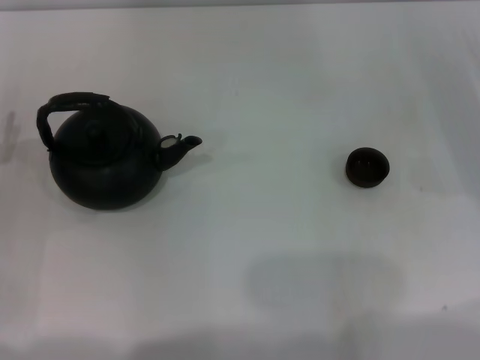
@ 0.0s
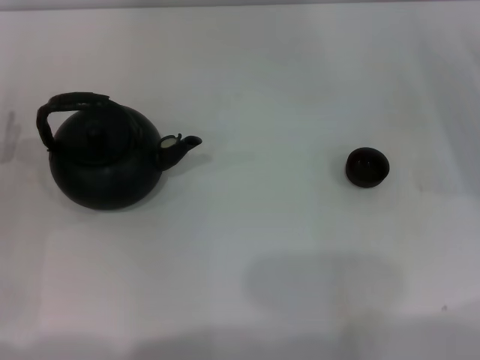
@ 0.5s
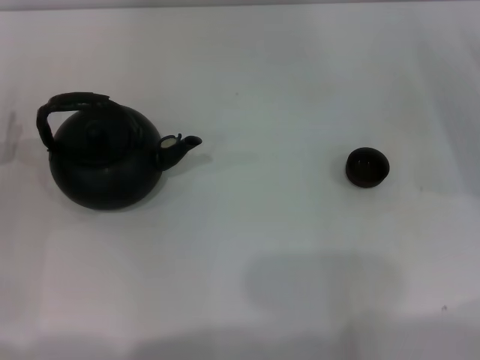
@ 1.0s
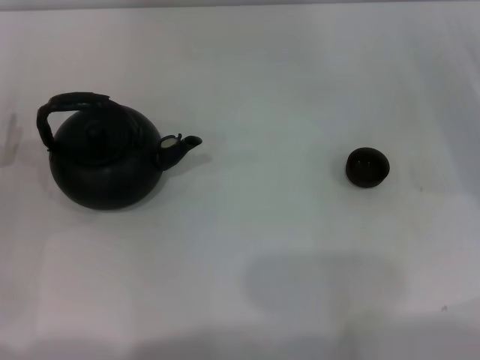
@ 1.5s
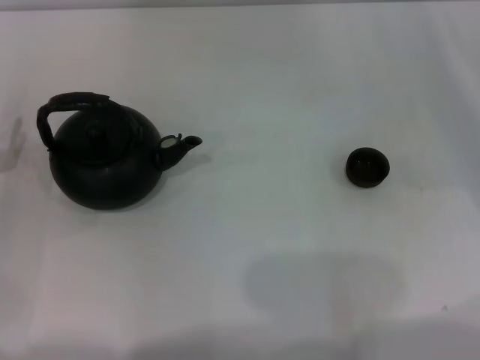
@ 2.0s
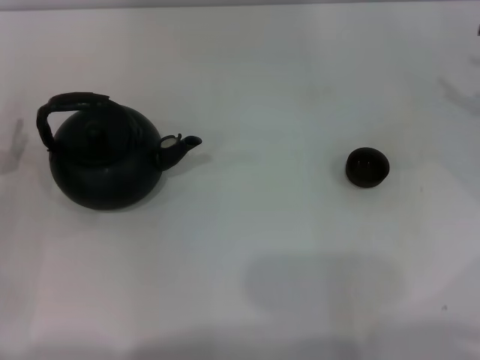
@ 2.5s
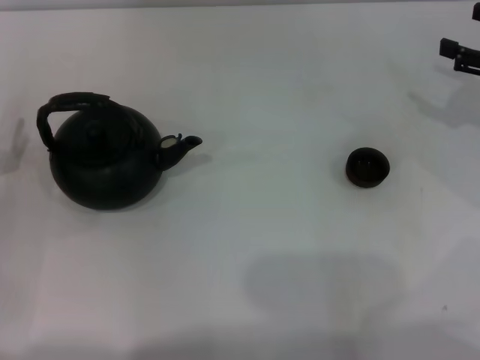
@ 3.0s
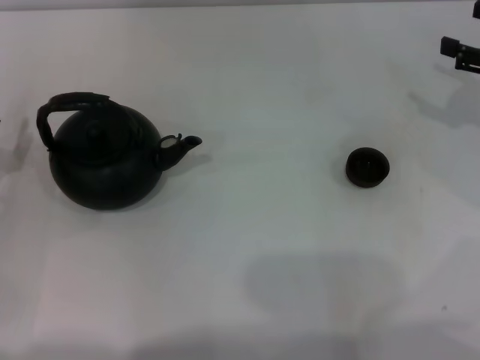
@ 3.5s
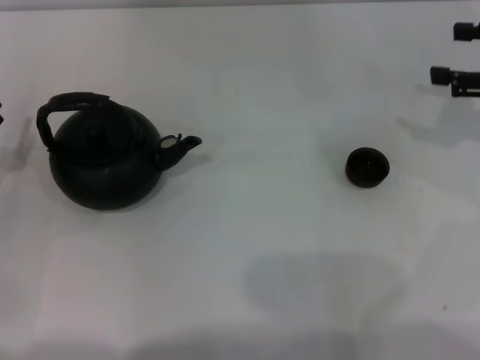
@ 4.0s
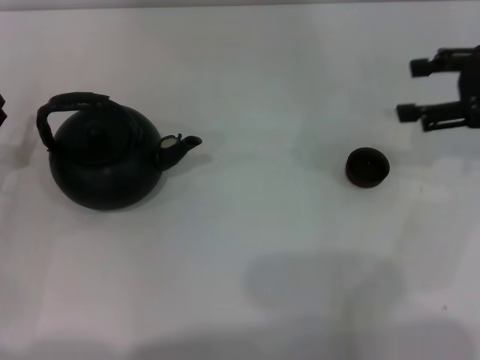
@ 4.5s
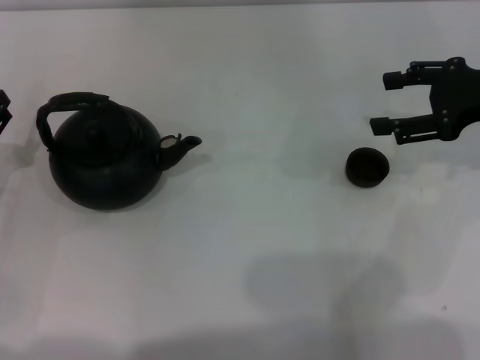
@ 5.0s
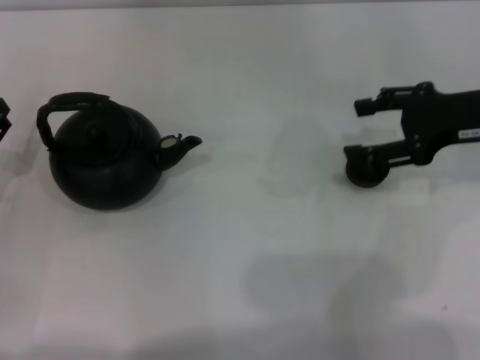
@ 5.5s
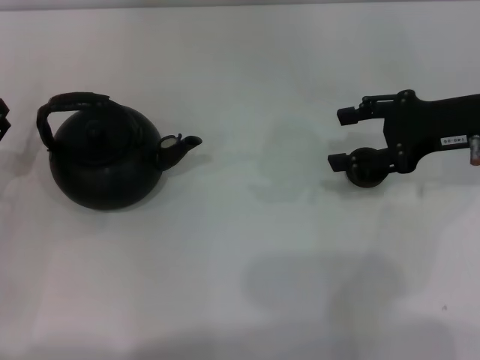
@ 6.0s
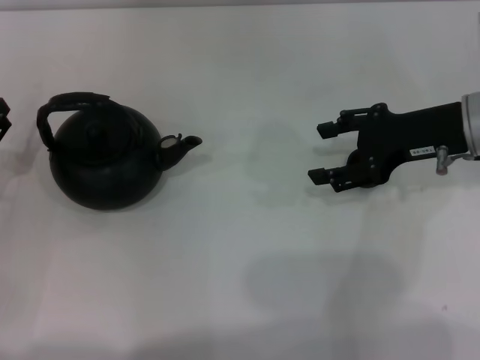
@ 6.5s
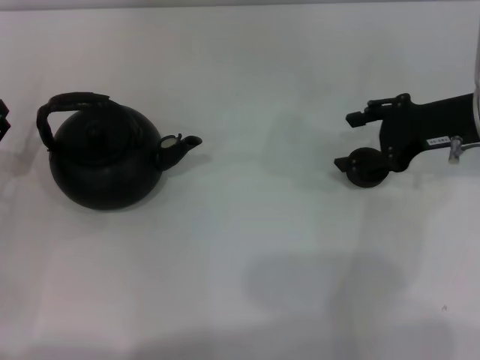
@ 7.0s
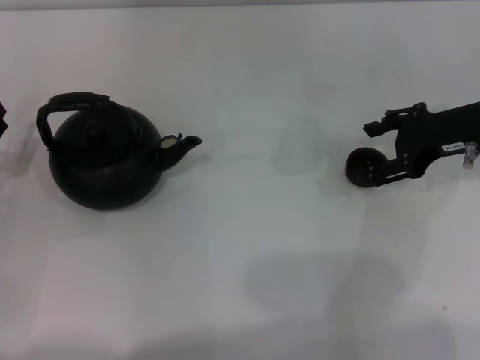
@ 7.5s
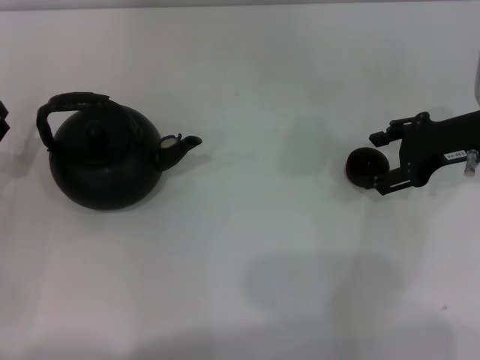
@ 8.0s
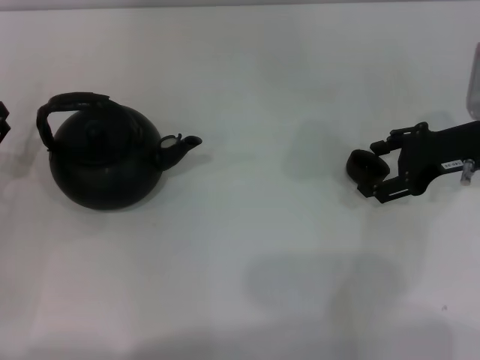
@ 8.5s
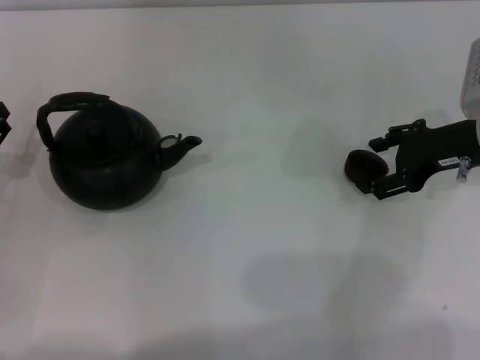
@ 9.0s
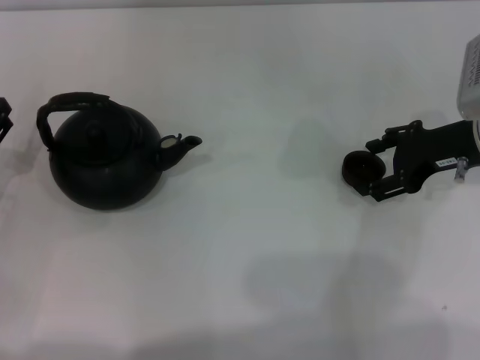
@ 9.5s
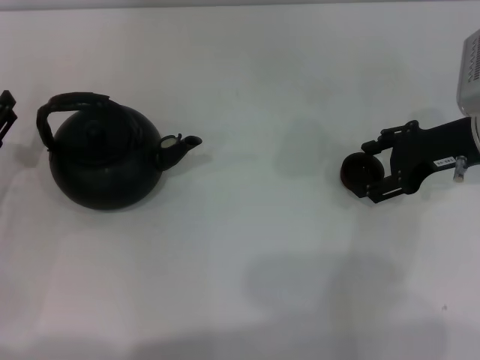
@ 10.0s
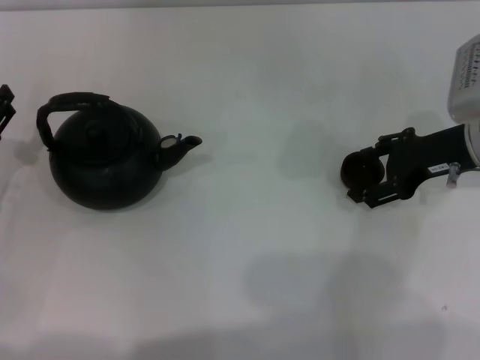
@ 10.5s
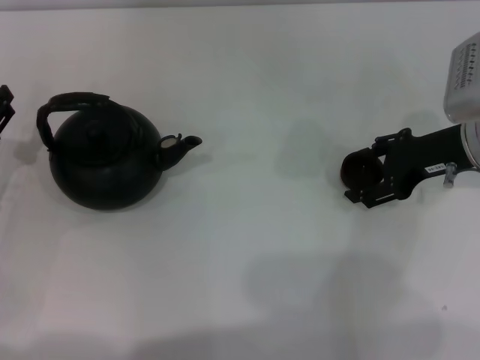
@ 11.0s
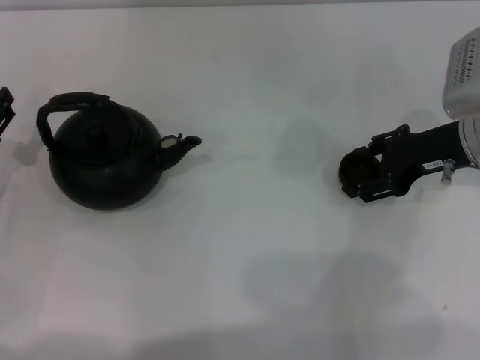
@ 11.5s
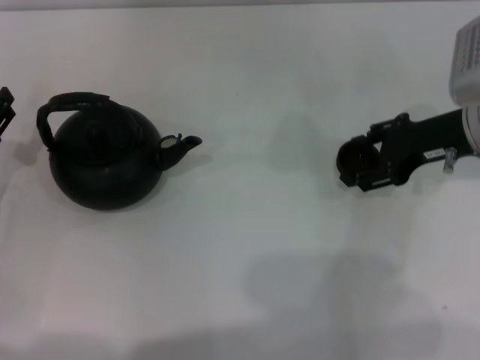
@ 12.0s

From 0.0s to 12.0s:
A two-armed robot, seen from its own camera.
Task of the whole recording: Grasp the handle of the teapot with one hand and pour tea into the teacup.
From 2.0s to 4.0s: The right gripper travels upward by roughly 10 cm.
From 4.0s to 6.0s: The right gripper moves to the left, roughly 10 cm.
From 8.0s to 10.0s: The grippers move only a little.
From 10.0s to 12.0s: The right gripper closes its fingers.

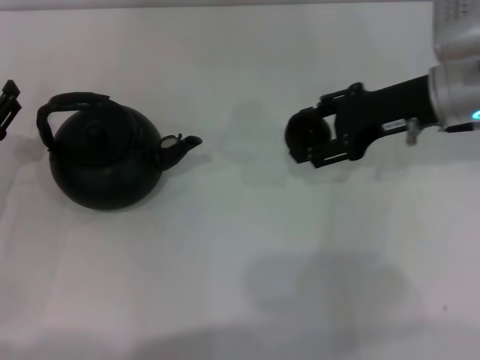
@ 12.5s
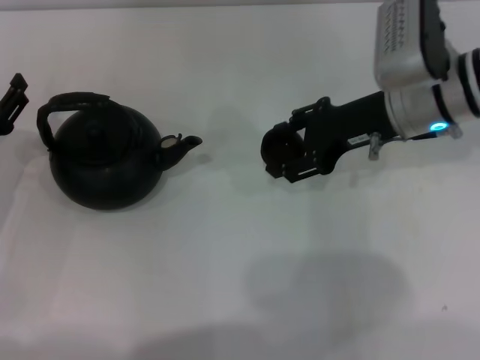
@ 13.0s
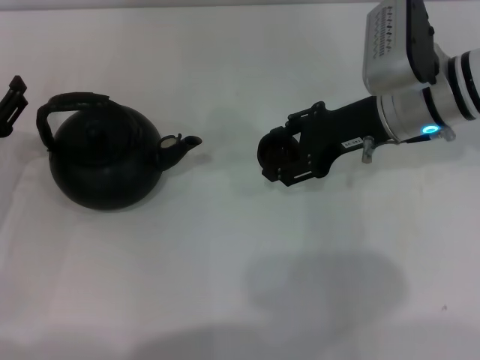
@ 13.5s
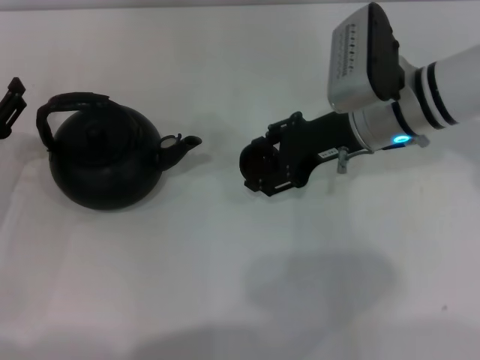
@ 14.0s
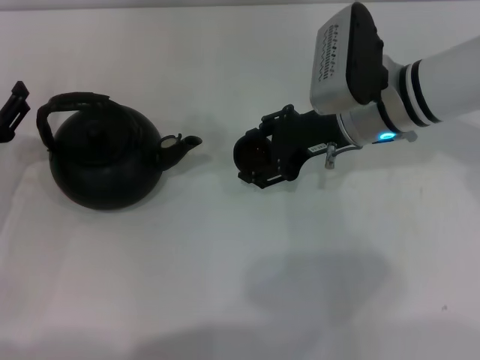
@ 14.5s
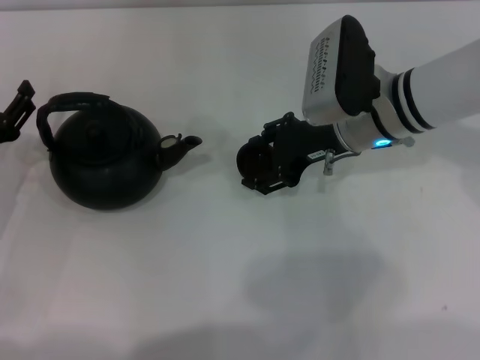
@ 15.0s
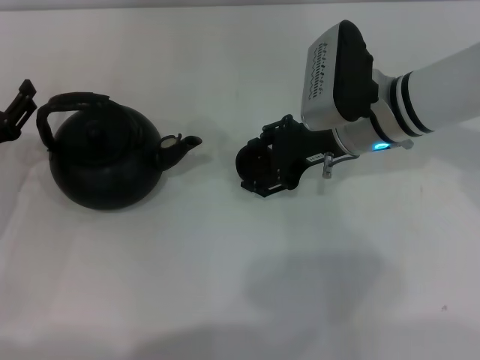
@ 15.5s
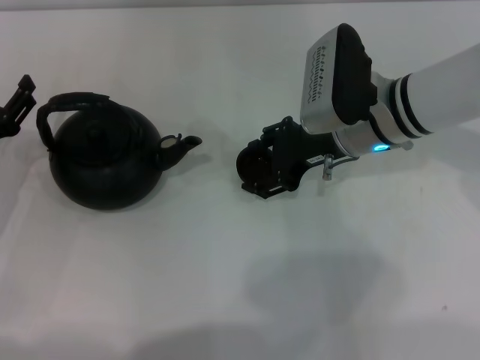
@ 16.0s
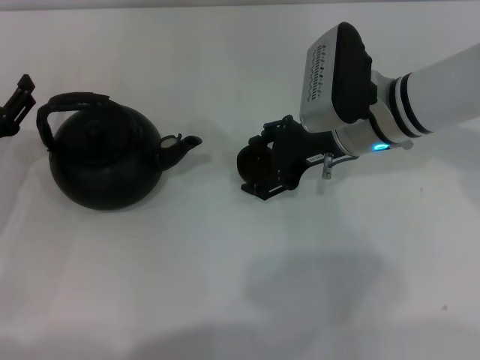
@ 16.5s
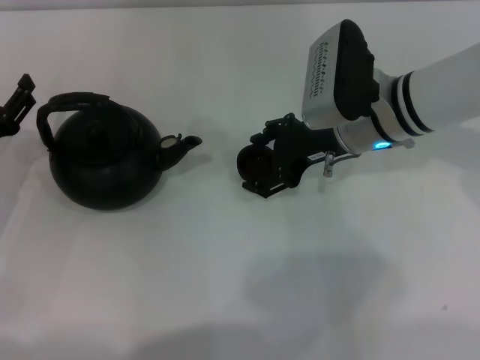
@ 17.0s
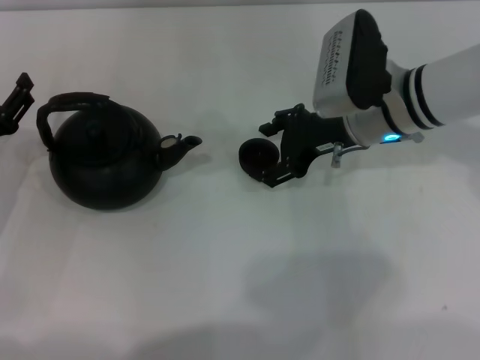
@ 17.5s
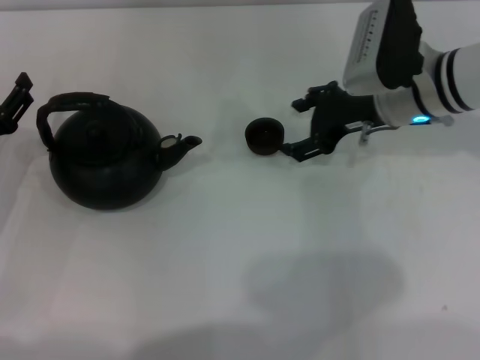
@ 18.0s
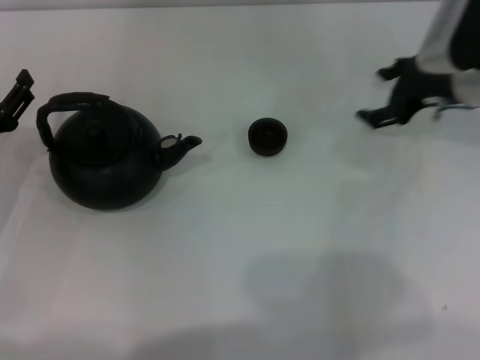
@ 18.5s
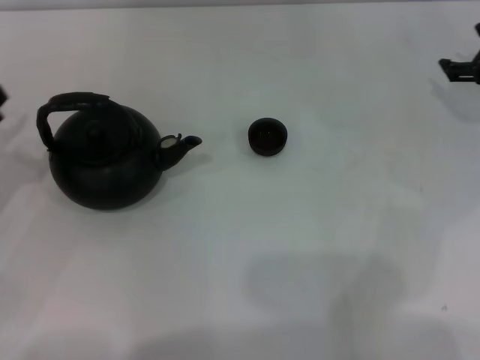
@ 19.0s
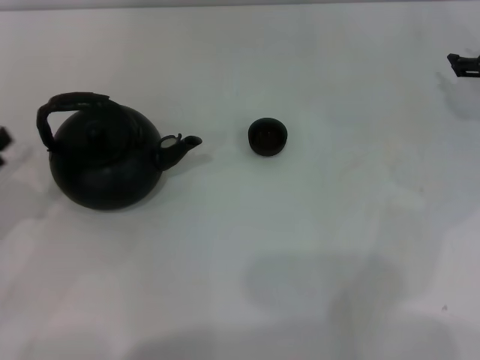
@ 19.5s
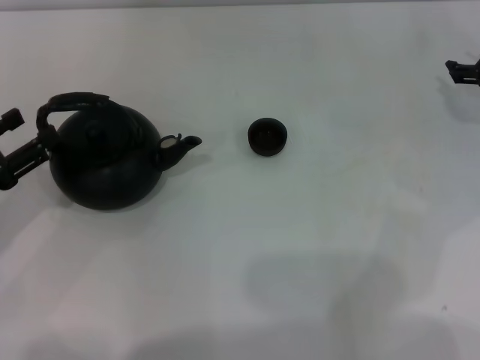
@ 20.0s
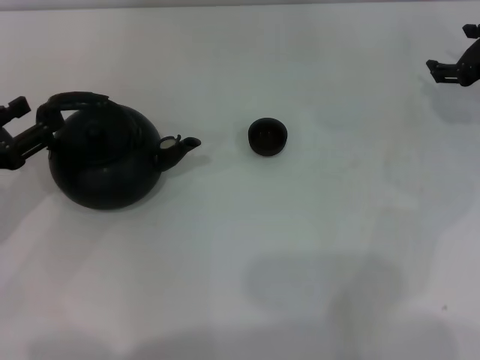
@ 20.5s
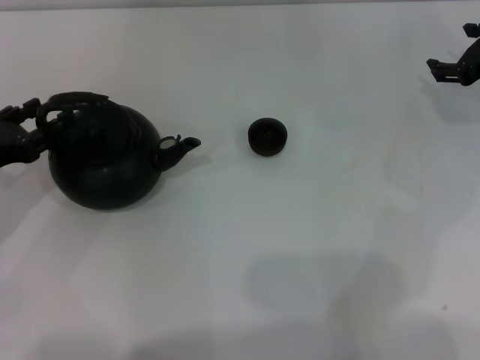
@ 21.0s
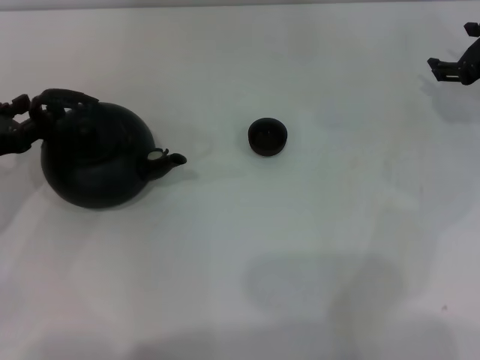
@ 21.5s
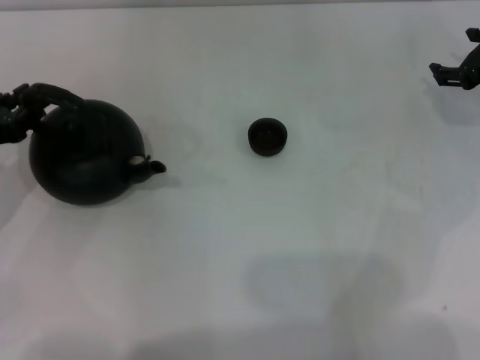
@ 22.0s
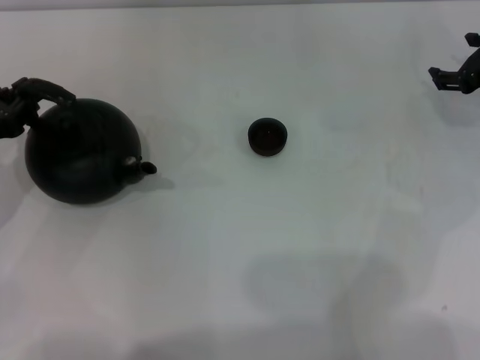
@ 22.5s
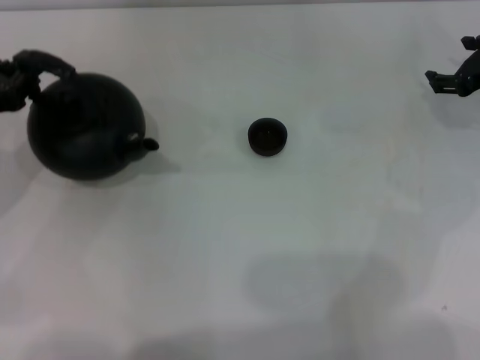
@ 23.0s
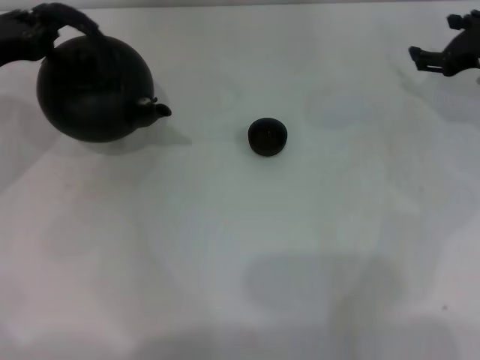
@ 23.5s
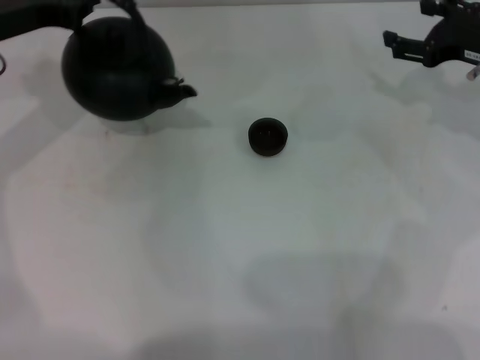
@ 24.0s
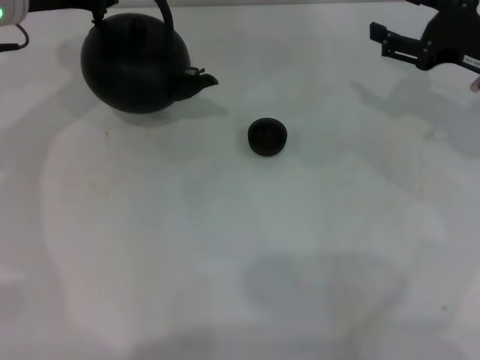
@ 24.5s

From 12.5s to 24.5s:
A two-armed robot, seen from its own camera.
Task of the whole recording: Grasp the handle of the teapot with one hand and pour tea into the teacup.
Step, from 13.0s to 17.5s: Place the teacup in the center of view with the right gripper.
Step, from 18.0s to 23.5s: Pick up the teapot with the left gripper.
From 12.5s to 14.5s: The right gripper travels to the left by some 10 cm.
From 14.5s to 16.5s: Both grippers stay put.
From 16.5s to 18.5s: The right gripper travels to the right by roughly 10 cm, and opens up.
From 18.5s to 20.5s: The right gripper heads to the right, covering about 5 cm.
From 20.5s to 22.5s: The left gripper closes its fingers.
From 22.5s to 24.5s: The left gripper is displaced forward, upward and to the right by some 20 cm. The right gripper shifts by some 5 cm.

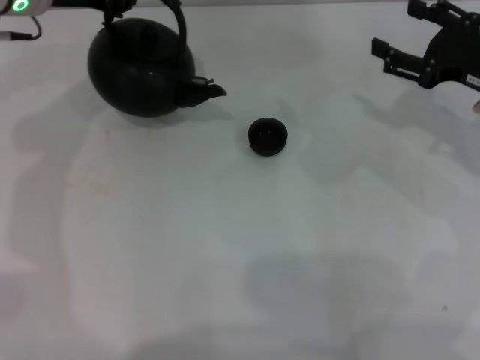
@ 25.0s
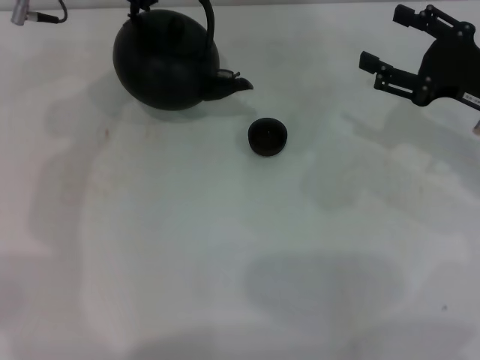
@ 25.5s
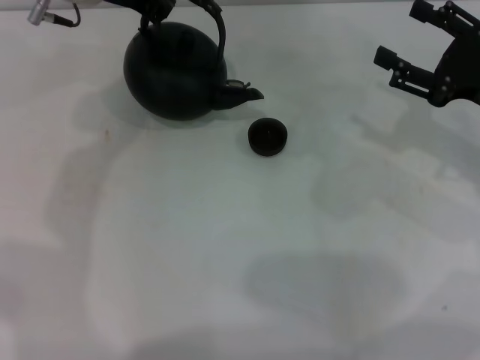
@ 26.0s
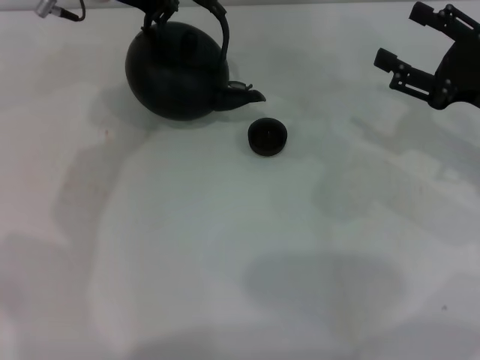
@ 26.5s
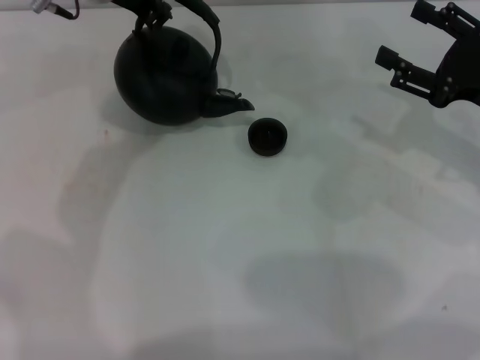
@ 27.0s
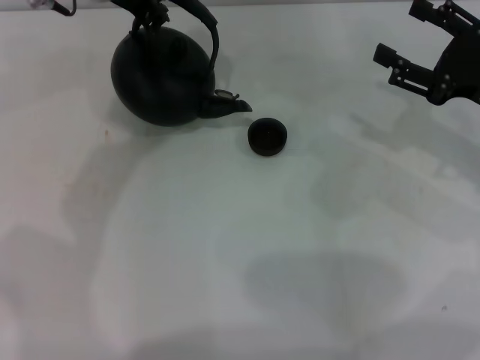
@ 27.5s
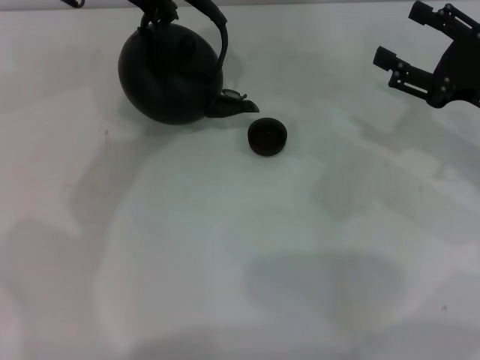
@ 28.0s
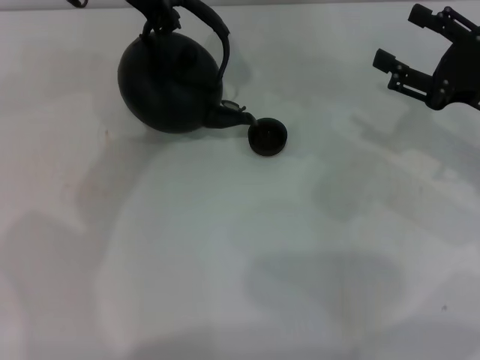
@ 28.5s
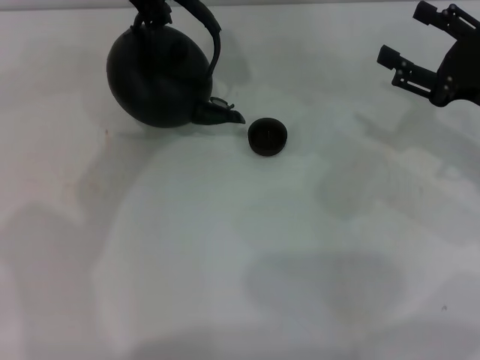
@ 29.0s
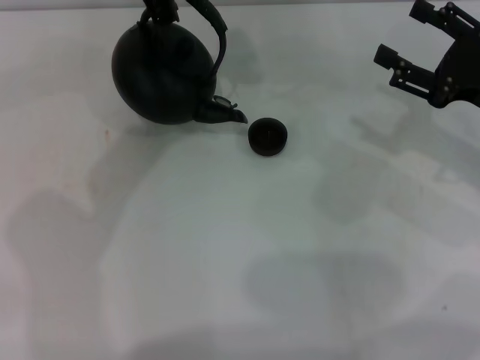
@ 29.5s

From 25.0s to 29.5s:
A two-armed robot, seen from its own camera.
Task of the whole recording: Grasp the handle of the teapot with one hand and pour tea into the teacup.
From 25.0s to 27.0s: The left gripper moves to the right, approximately 10 cm.
